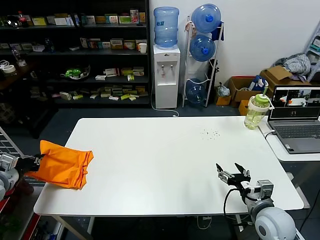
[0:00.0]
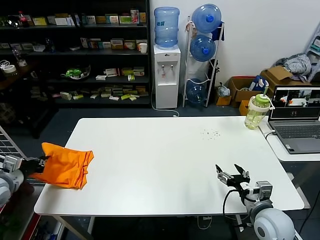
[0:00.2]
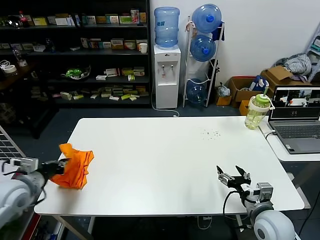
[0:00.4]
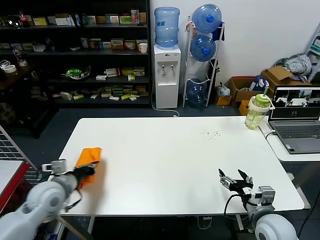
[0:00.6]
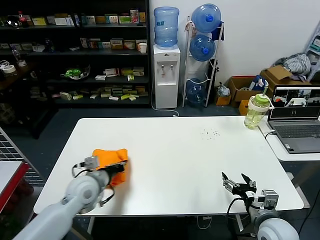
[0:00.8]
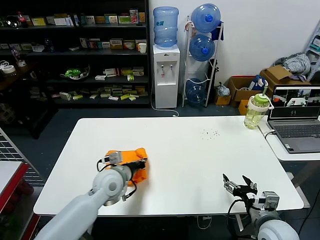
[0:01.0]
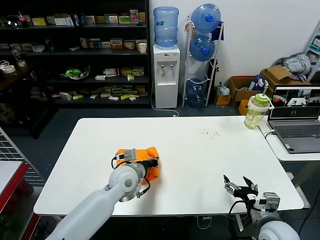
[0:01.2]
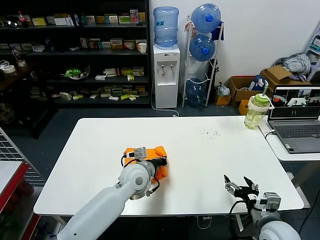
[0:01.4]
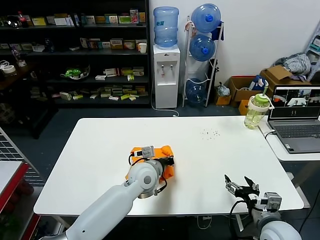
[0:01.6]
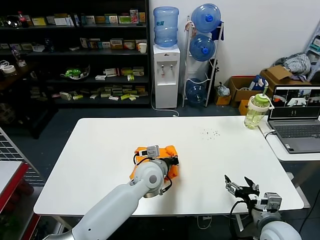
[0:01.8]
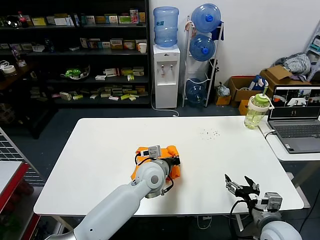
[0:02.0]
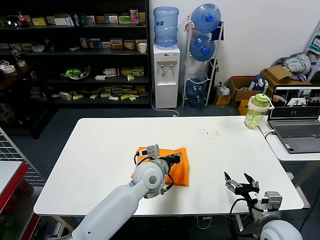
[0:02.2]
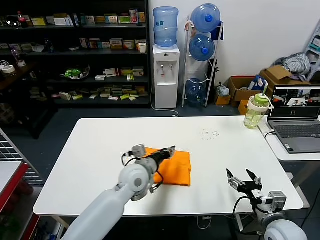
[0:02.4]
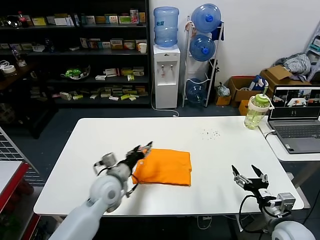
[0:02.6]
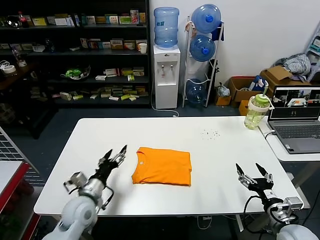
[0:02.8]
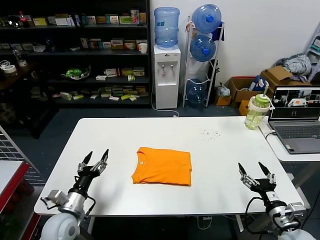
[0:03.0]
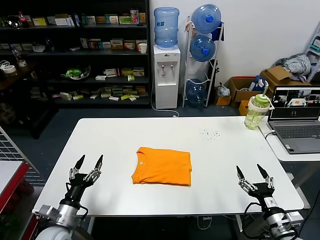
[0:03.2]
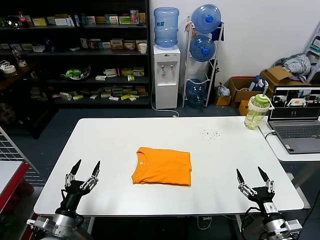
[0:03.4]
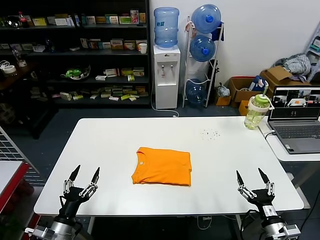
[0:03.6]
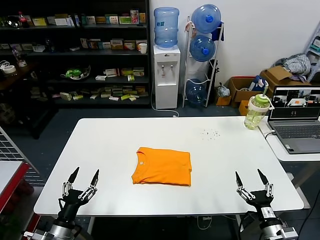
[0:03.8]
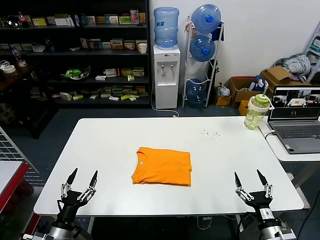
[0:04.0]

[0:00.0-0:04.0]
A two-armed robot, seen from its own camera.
Task of the whole recording: fold and organize the clothes.
Step, 0.0 to 2.2 s: Flip the folded clothes over with left gripper.
0.0 to 1.4 s: The left gripper moves to the right, some 40 cm.
1.4 to 2.6 s: The left gripper opens.
2.6 to 4.0 s: The left gripper moves backward, to the left and downward, about 30 cm. The right gripper heads downward and backward, covering roughly 10 cm.

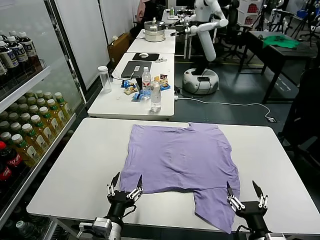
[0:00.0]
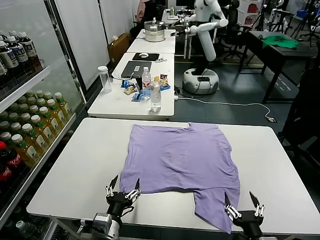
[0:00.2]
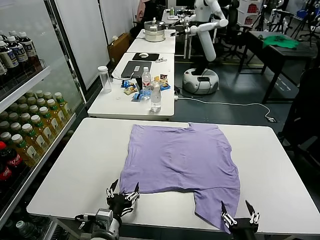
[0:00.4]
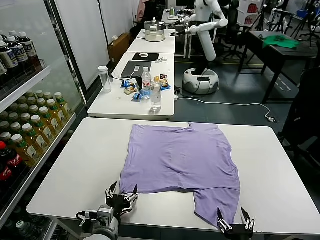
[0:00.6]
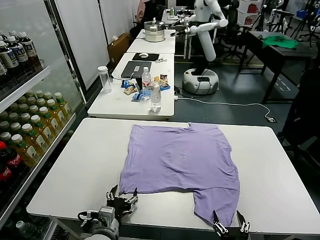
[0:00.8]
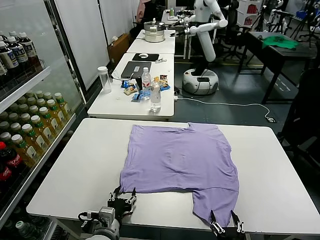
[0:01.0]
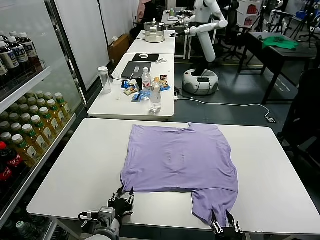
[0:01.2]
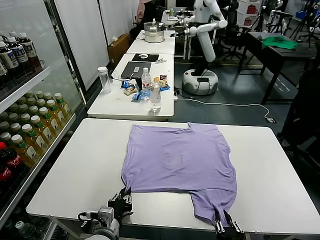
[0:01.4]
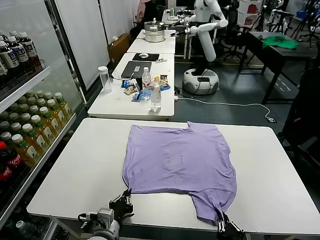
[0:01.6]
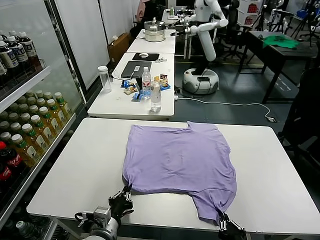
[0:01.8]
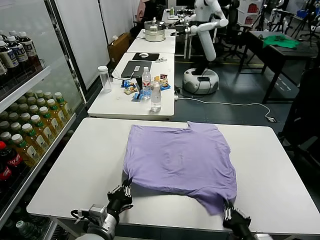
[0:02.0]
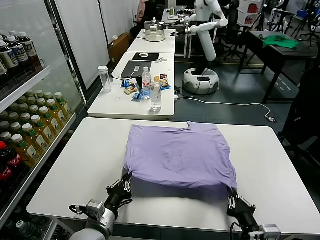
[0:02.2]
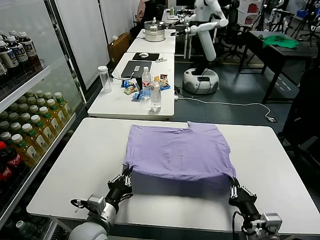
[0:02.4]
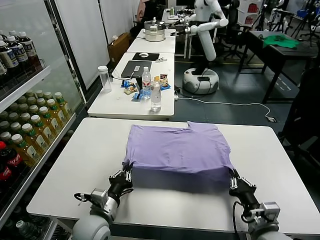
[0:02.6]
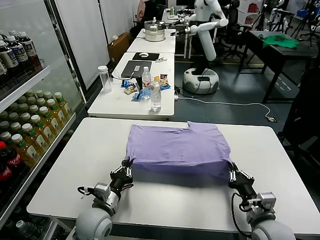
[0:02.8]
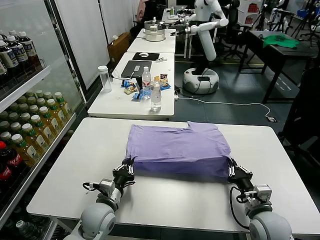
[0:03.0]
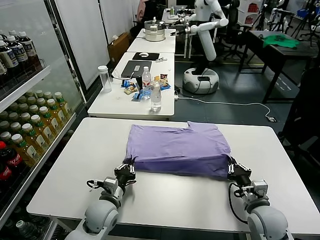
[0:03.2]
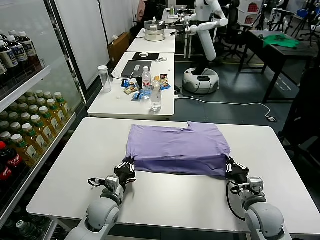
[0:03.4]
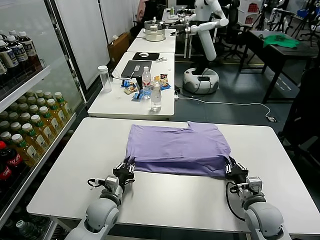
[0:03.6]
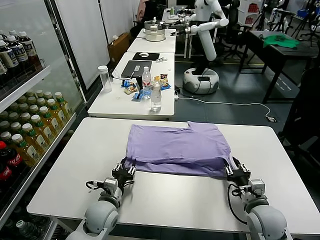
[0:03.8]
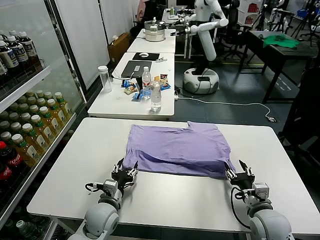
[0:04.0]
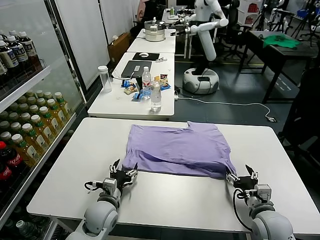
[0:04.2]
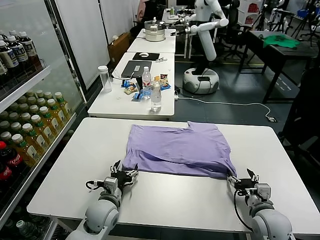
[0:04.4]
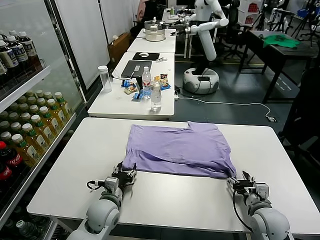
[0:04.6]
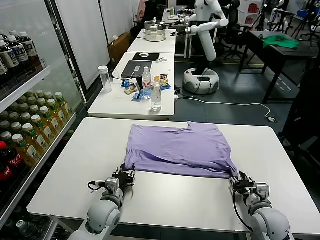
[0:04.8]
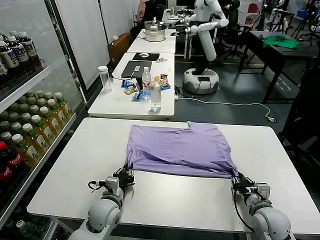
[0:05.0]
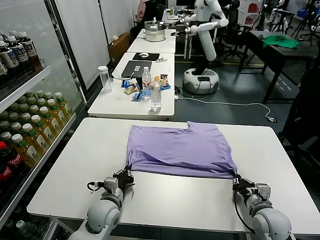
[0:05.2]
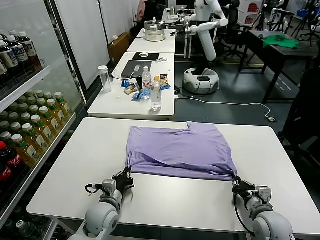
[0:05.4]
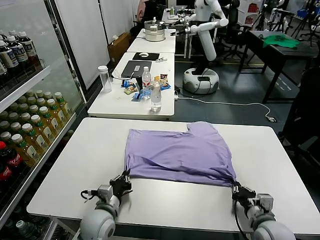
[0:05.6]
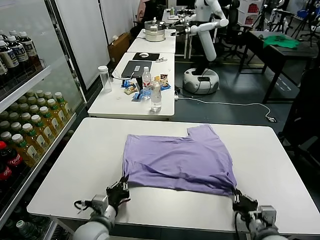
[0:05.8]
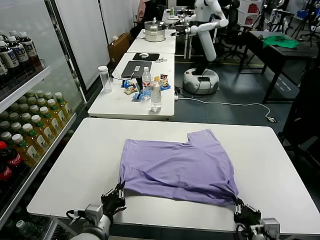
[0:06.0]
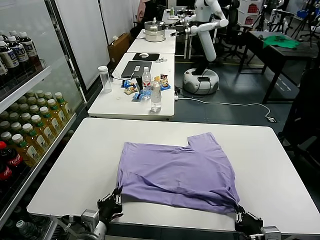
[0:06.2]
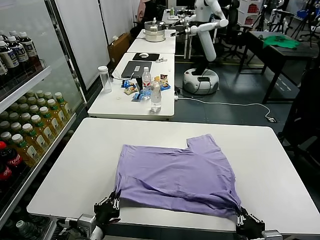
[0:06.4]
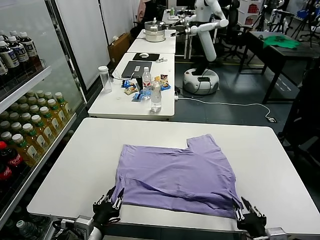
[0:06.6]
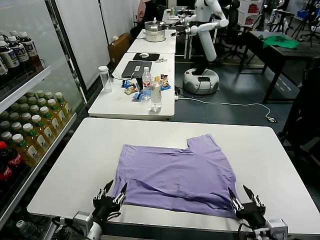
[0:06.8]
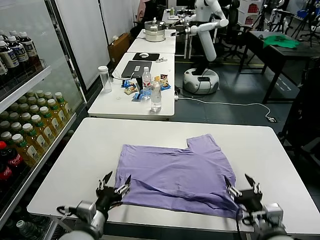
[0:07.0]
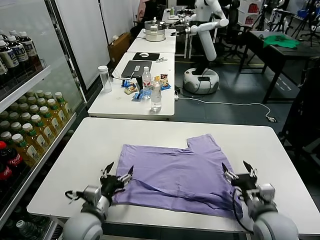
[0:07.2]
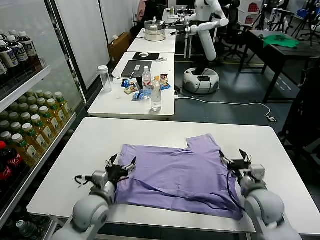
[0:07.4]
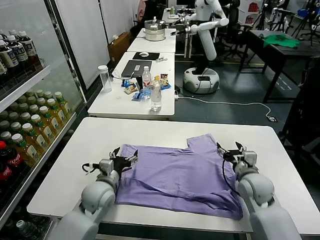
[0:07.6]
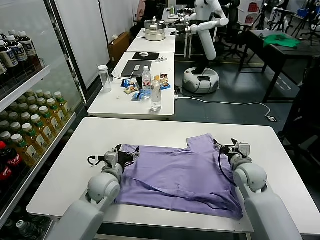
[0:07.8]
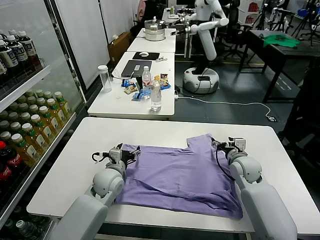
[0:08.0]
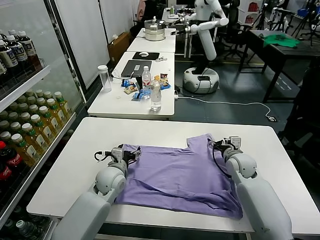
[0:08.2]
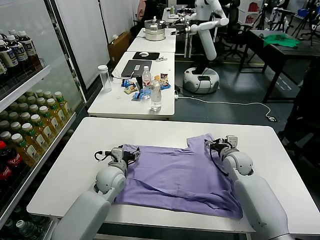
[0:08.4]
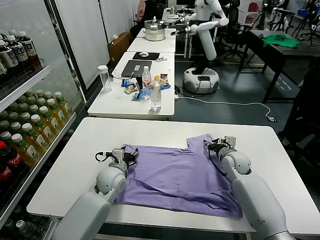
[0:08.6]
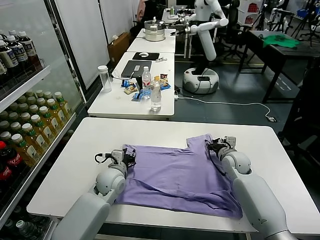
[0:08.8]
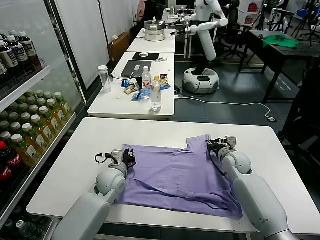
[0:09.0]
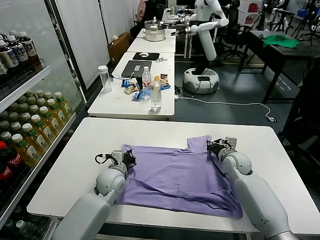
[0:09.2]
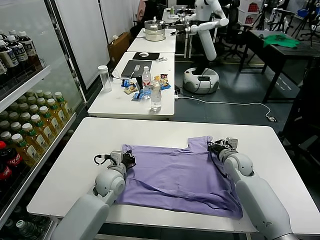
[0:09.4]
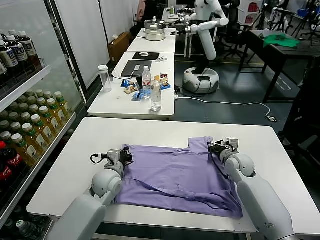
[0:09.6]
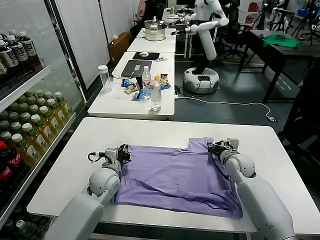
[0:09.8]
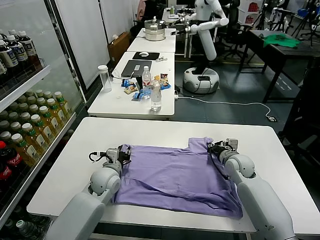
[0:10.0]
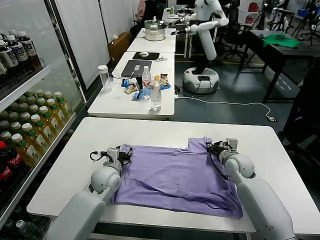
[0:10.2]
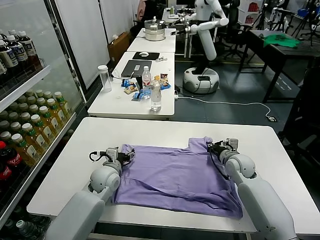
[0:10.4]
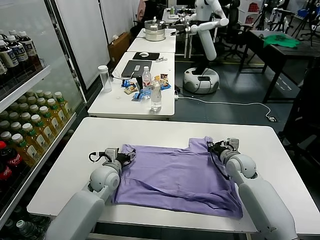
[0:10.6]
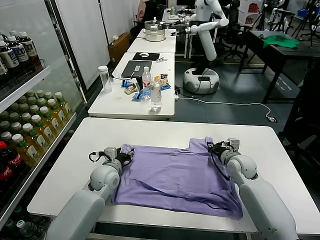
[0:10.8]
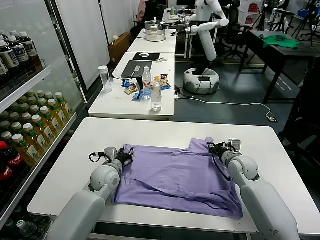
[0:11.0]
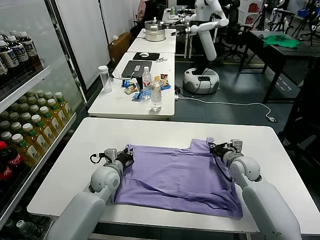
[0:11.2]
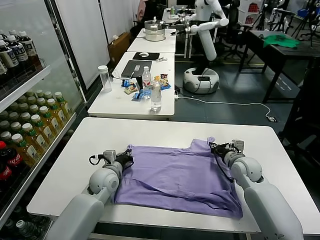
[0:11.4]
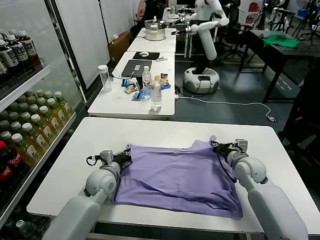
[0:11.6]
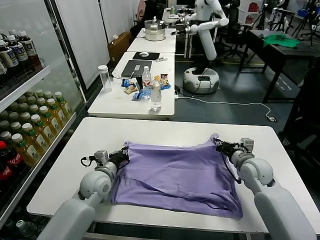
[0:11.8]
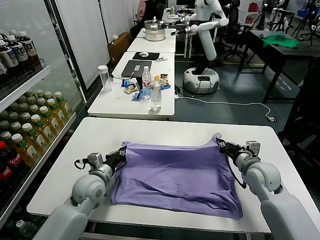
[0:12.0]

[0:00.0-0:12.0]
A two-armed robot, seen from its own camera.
Task of the whole recording: fold and organize the clothes.
Step, 0.0 to 1.6 s: use both grippers simultaneously to clamp the lower edge of the clothing fabric.
Step, 1.8 to 3.8 s: use both grippers to drag the lower edge of the fabric forward and fold it over the upper edge.
Step, 4.0 to 6.8 s: Drag the clothes downward with both gripper.
Step, 7.0 to 11.4 s: use both grippers simultaneously to clamp the upper edge of the clothing fabric.
1.6 to 3.0 s: The left gripper goes some 10 cm forward. The right gripper heads forward and to the right, covering approximately 15 cm.
3.0 to 4.4 s: The right gripper opens up; the left gripper opens up.
4.4 to 6.0 s: The two grippers go approximately 10 cm backward. The right gripper closes; the left gripper closes.
6.0 to 7.6 s: The left gripper moves forward, approximately 15 cm, and opens. The right gripper heads forward, covering some 25 cm, and opens.
7.6 to 9.0 s: The left gripper is displaced forward by roughly 5 cm, and closes. The right gripper travels forward by about 10 cm, and closes.
9.0 to 10.4 s: The left gripper opens.
10.4 to 12.0 s: The left gripper changes place by some 5 cm, and closes its fingers, while the right gripper goes some 10 cm backward and upward.

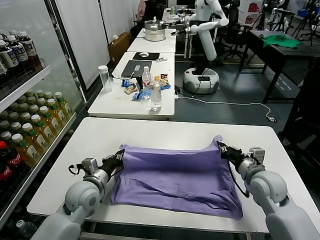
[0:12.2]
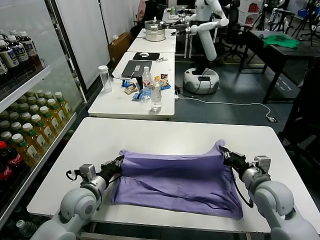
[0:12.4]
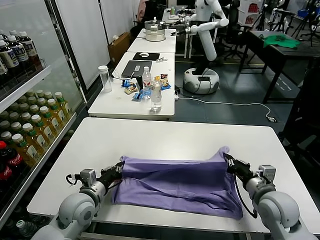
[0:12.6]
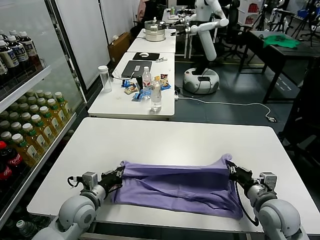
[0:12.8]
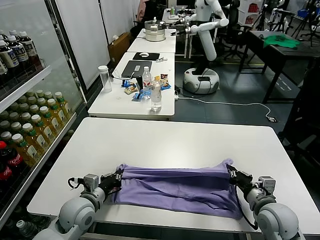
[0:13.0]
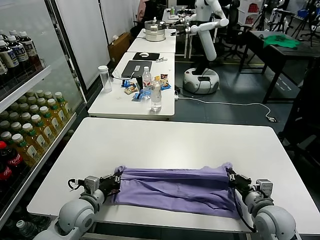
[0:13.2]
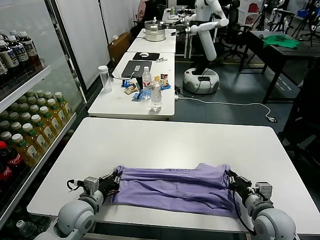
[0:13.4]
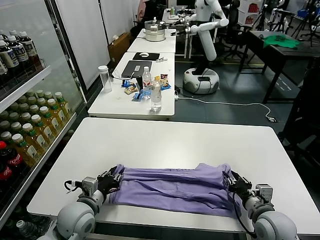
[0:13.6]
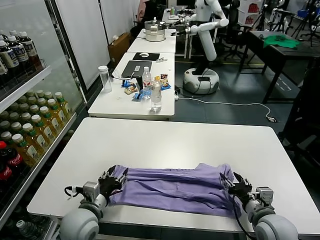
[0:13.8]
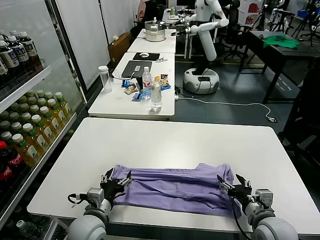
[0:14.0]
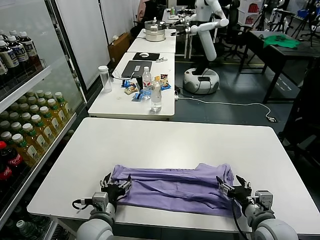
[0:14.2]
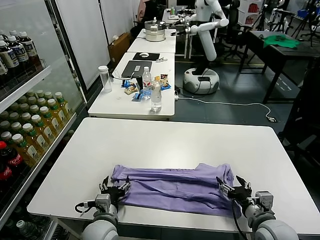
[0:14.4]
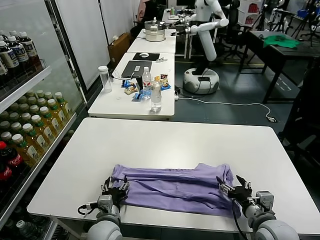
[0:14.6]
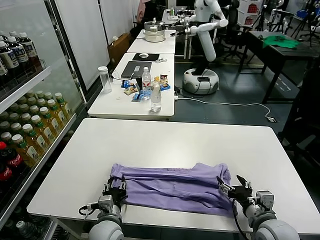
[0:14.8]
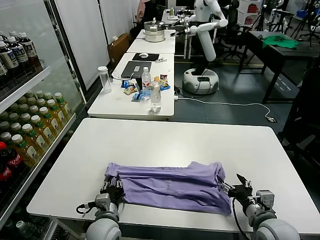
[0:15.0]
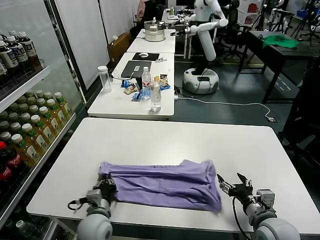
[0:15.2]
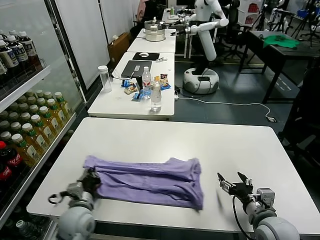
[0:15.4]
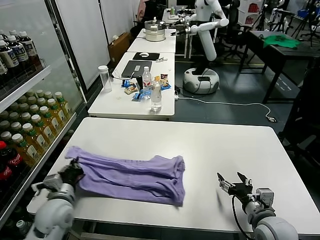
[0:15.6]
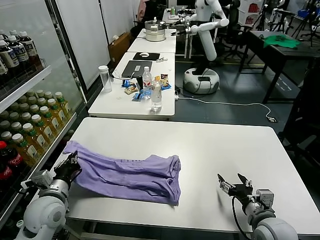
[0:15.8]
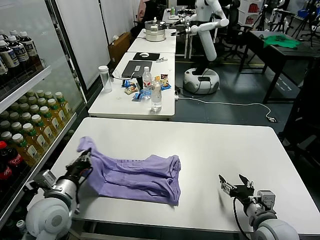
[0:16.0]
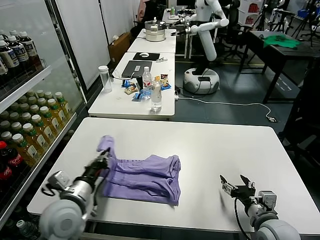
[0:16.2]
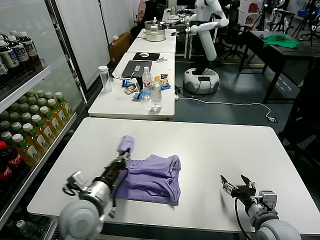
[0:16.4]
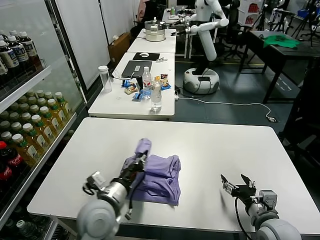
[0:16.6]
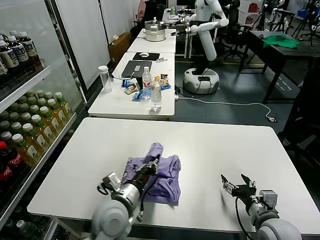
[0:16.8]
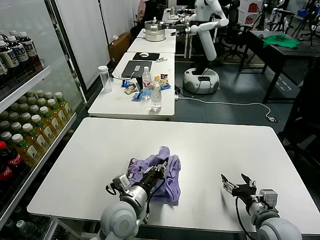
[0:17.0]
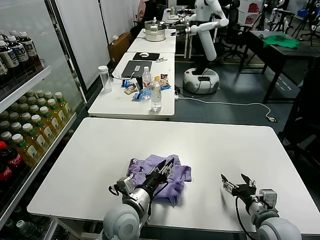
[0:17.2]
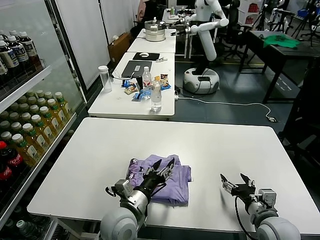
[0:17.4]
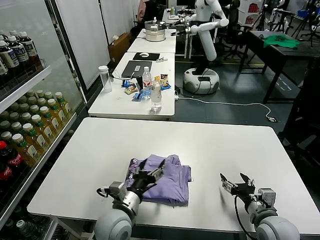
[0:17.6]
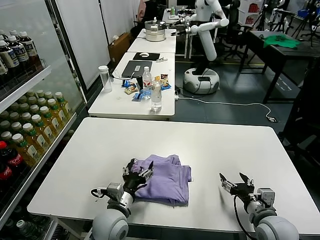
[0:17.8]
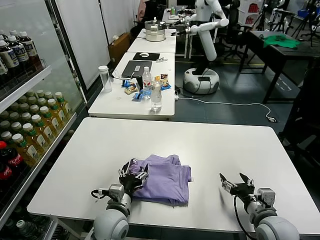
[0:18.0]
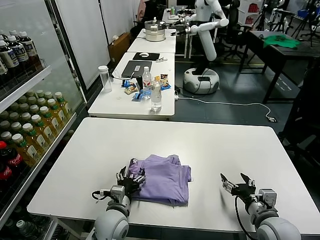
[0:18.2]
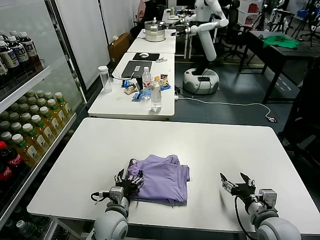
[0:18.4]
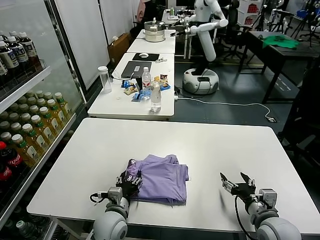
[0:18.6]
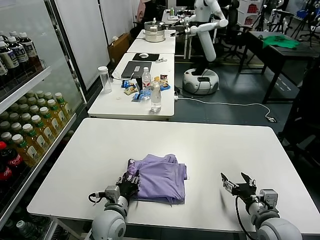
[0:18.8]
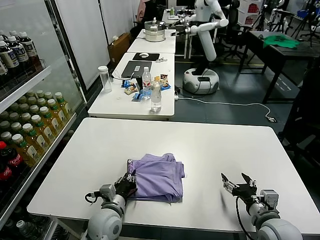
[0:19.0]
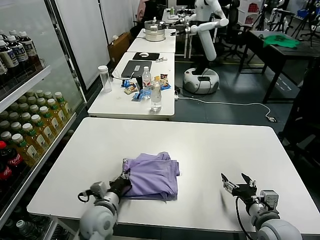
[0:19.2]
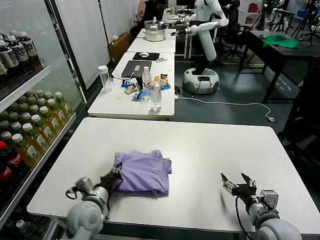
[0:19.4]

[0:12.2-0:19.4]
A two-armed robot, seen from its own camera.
Task of the whole recording: fold and organize the clothes.
Step, 12.2 to 13.8 s: use both grippers to drag the upper edge of the fabric backward and fold it over the lower edge.
Step, 14.0 to 15.2 s: use the left gripper to clamp the left edge of the fabric.
Step, 15.4 to 17.4 s: use the left gripper to drag the left edge of the fabric to the left and folds it over the right edge.
12.2 to 13.6 s: The grippers both shift backward by roughly 10 cm. The right gripper opens up; the left gripper opens its fingers.
13.6 to 15.0 s: The right gripper opens up. The left gripper travels to the right and downward by some 10 cm, and opens, then closes once more.
15.0 to 16.6 s: The left gripper heads upward, covering approximately 10 cm, and reaches roughly 15 cm to the left, then returns.
16.6 to 18.0 s: The left gripper moves downward, approximately 10 cm, and opens up.
18.0 to 19.4 s: The left gripper is displaced to the left by about 5 cm, and closes its fingers.
